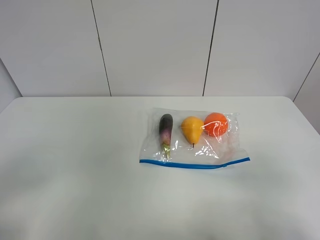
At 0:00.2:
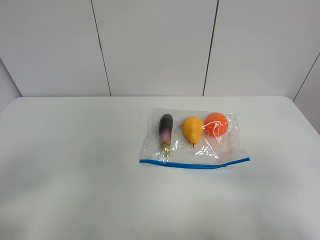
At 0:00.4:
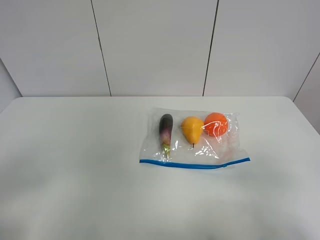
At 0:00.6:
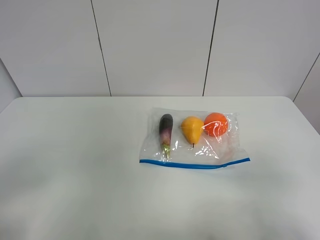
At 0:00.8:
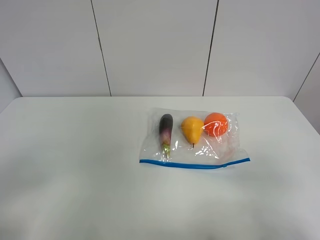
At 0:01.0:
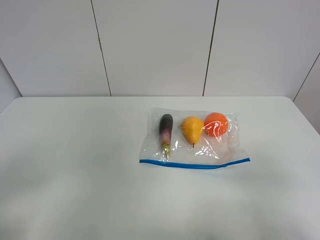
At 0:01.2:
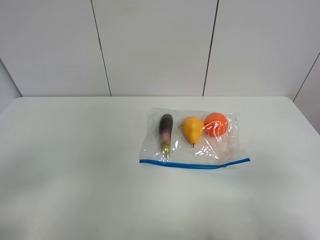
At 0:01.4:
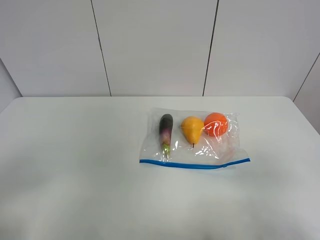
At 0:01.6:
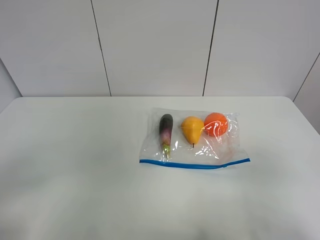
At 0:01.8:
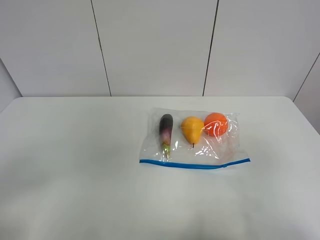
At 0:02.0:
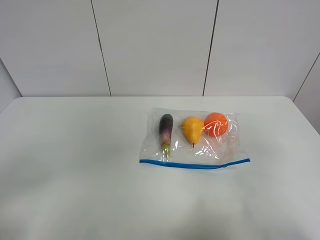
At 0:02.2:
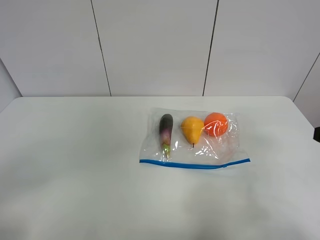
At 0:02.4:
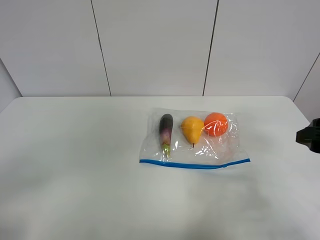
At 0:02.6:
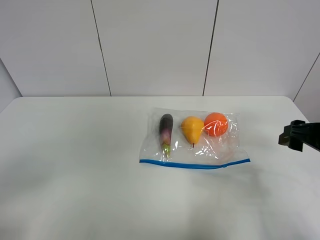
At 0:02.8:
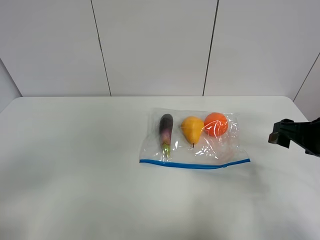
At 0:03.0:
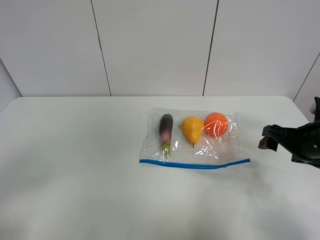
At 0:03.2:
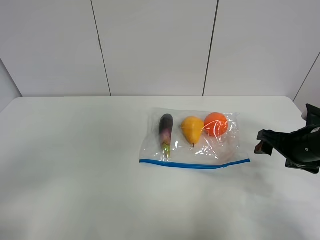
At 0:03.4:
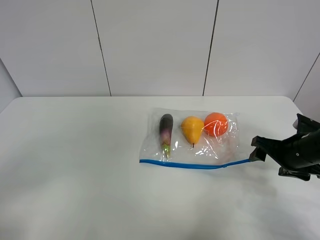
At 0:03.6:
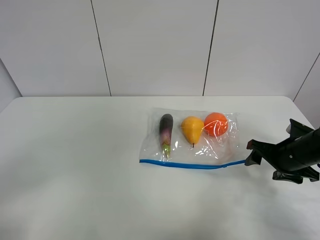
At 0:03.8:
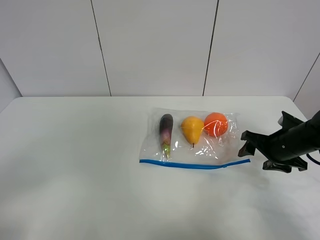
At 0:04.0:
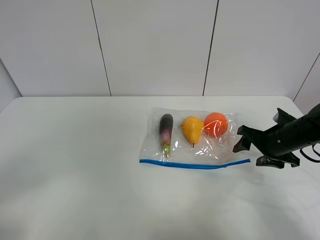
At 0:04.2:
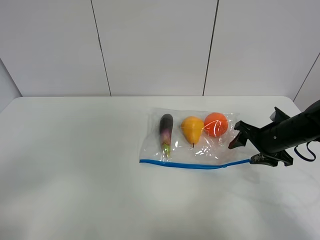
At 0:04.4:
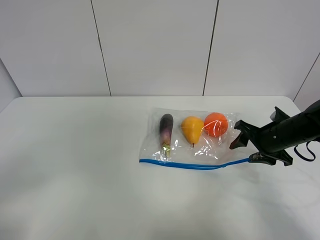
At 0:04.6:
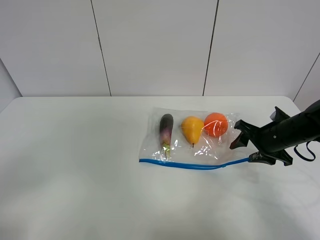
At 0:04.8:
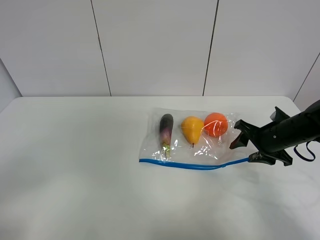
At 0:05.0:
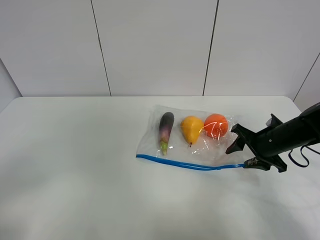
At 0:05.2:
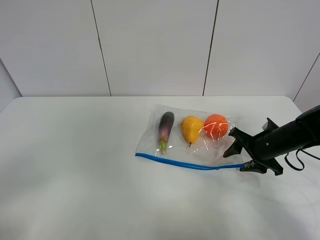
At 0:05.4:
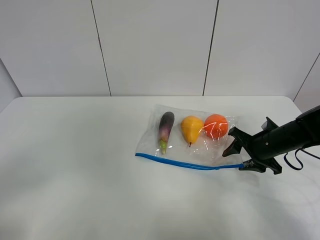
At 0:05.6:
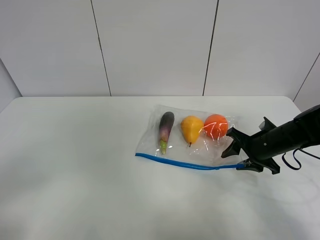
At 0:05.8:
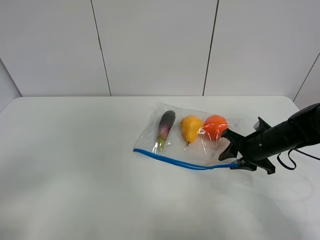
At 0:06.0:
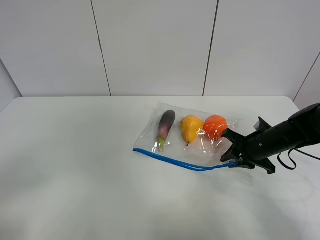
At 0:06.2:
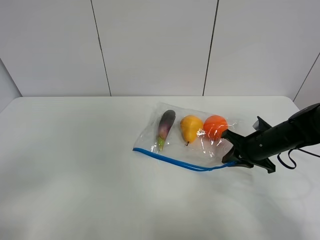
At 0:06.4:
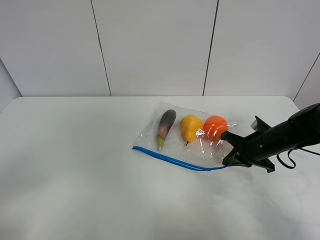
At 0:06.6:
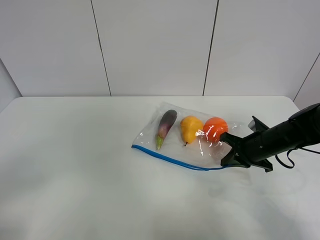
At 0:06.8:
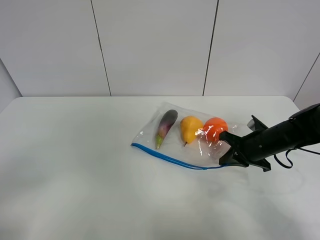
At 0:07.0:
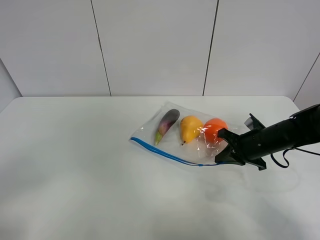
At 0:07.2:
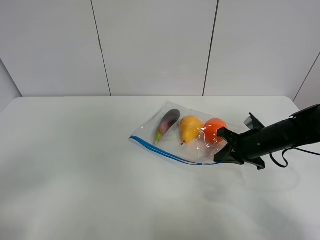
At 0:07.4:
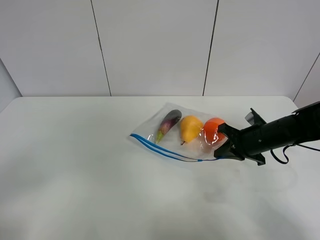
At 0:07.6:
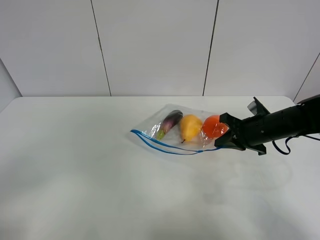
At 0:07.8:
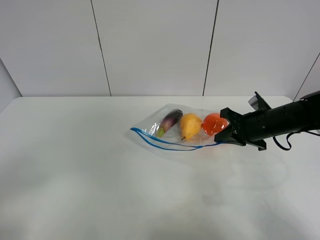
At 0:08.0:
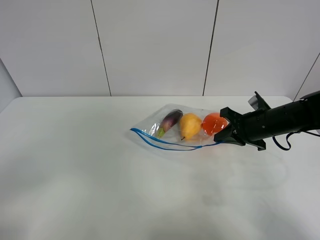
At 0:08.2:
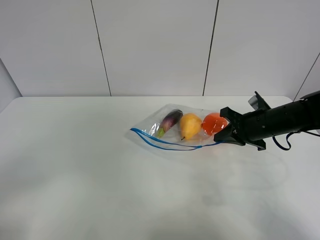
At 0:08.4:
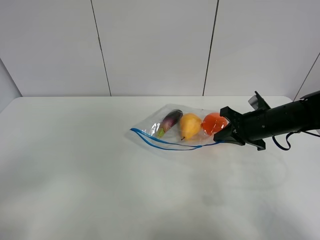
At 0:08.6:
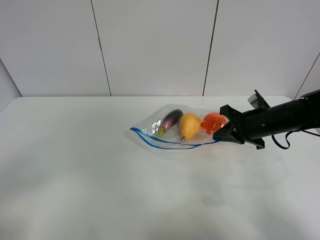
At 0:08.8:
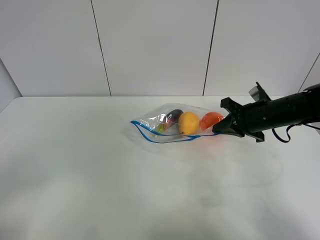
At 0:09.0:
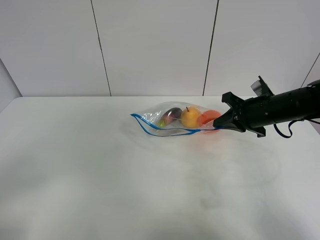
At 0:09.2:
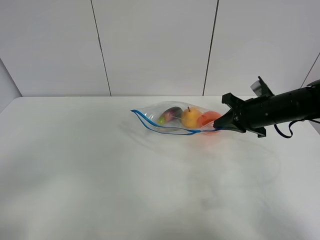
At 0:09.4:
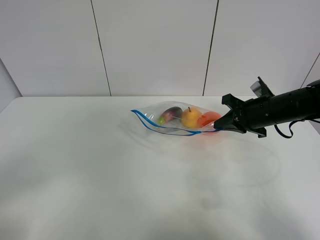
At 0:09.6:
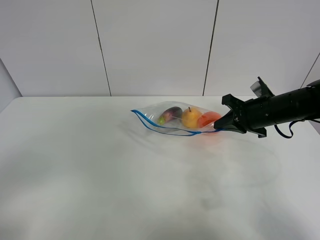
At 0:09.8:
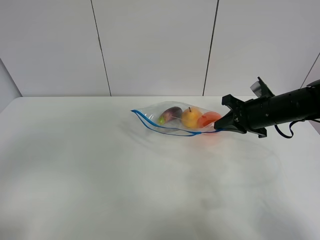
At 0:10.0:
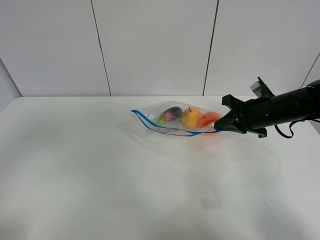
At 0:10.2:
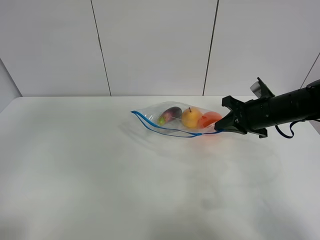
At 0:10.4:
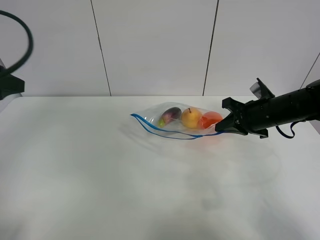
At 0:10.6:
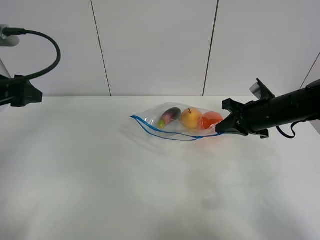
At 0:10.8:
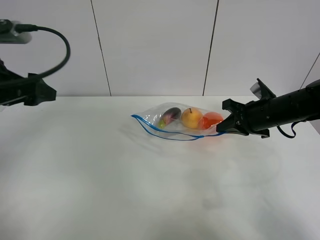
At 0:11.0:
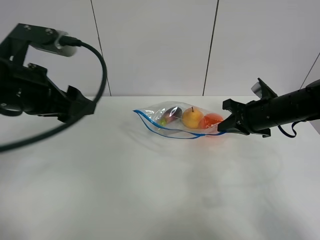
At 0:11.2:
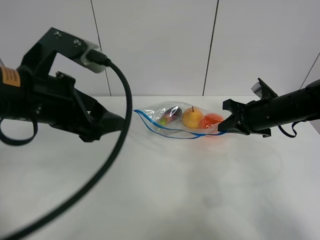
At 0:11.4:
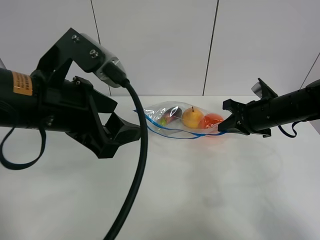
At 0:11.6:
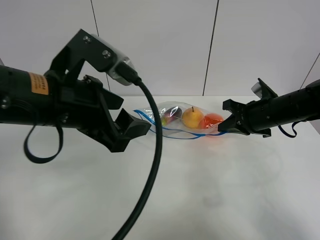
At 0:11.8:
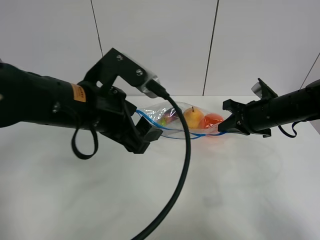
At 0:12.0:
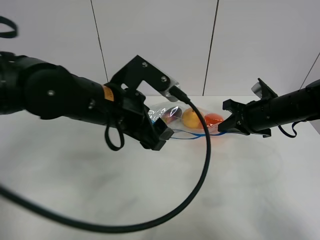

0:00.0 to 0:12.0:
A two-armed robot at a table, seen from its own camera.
Step, 0:00.0 to 0:06.4: Grasp the fruit bag with right gripper.
Step, 0:06.6 to 0:09.2: Lift the fruit bag with your right gripper.
0:01.6 to 0:03.0: The right gripper travels forward and downward by approximately 25 cm.
0:03.0 to 0:04.4: The right gripper is displaced forward and downward by some 10 cm.
0:04.4 to 0:06.0: The right gripper closes its fingers.
0:06.0 to 0:07.6: The grippers make only small movements.
0:07.6 to 0:09.0: The grippers stay close to where they were, moving slightly.
0:09.0 to 0:10.4: The left gripper travels forward by some 25 cm.
0:10.4 to 0:12.0: The left gripper travels to the right by approximately 25 cm.

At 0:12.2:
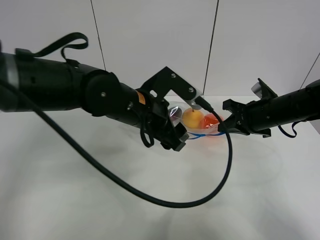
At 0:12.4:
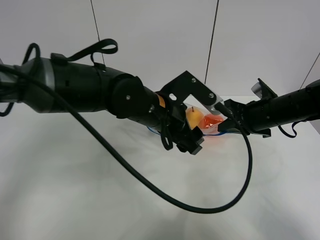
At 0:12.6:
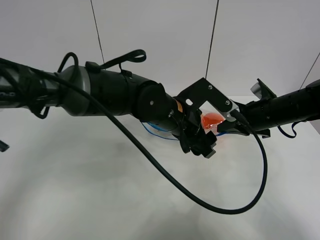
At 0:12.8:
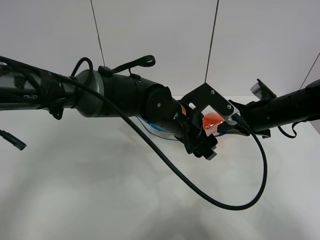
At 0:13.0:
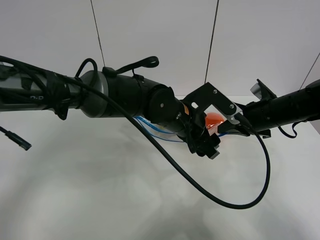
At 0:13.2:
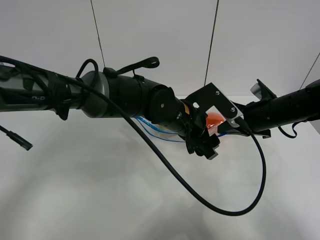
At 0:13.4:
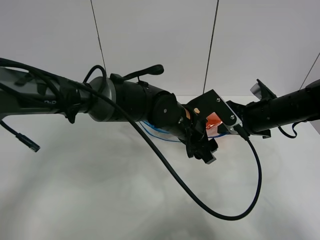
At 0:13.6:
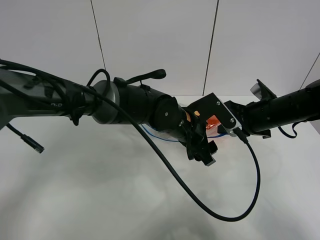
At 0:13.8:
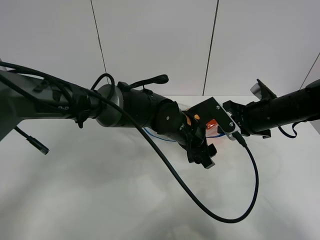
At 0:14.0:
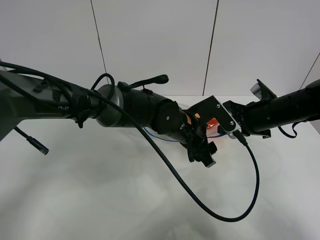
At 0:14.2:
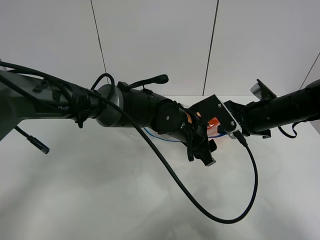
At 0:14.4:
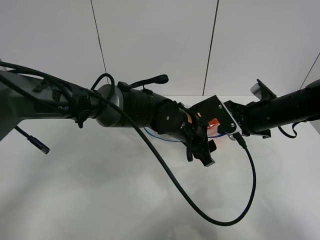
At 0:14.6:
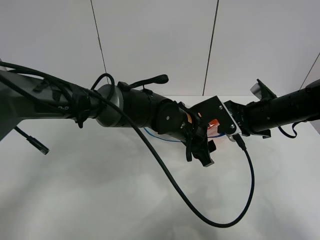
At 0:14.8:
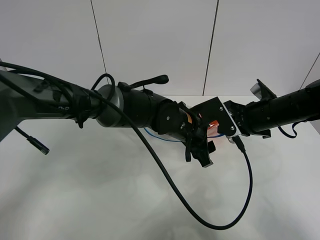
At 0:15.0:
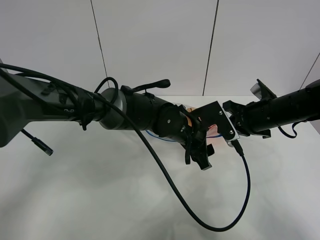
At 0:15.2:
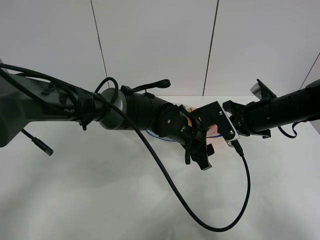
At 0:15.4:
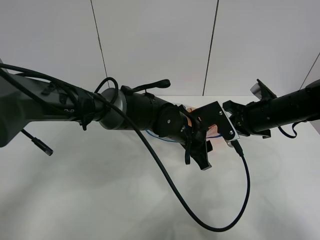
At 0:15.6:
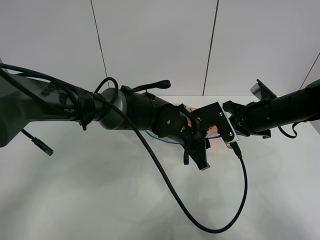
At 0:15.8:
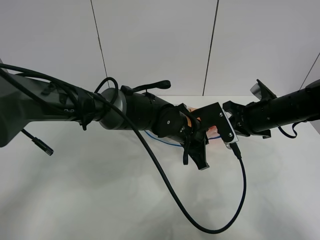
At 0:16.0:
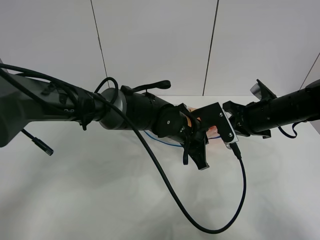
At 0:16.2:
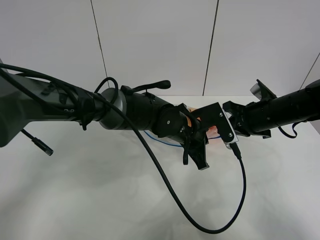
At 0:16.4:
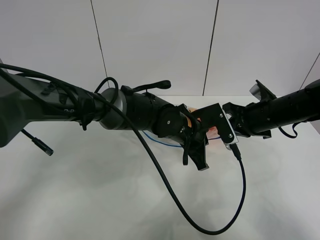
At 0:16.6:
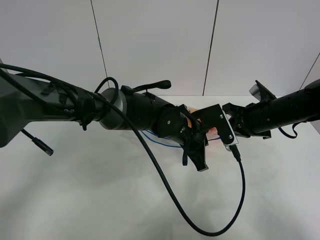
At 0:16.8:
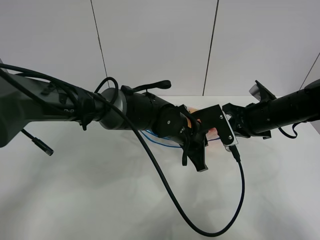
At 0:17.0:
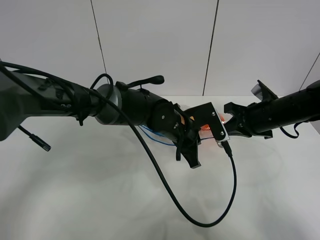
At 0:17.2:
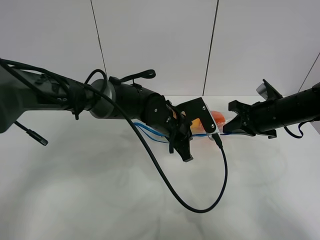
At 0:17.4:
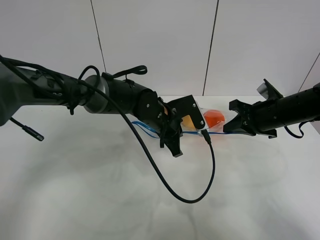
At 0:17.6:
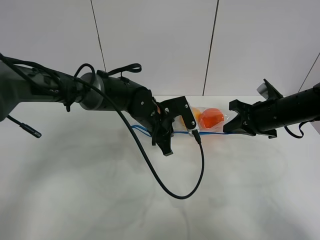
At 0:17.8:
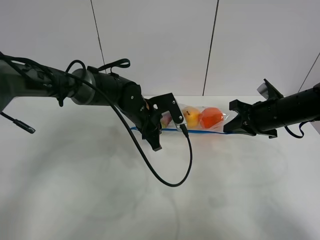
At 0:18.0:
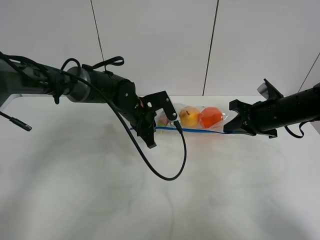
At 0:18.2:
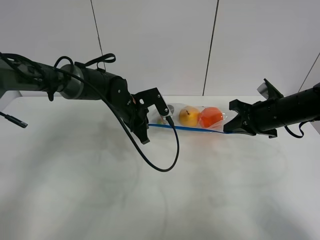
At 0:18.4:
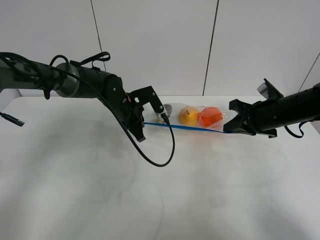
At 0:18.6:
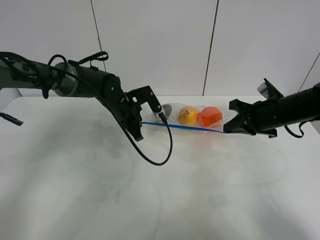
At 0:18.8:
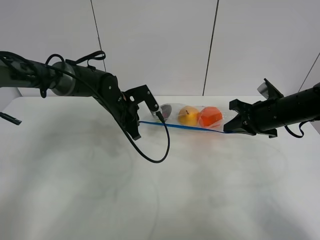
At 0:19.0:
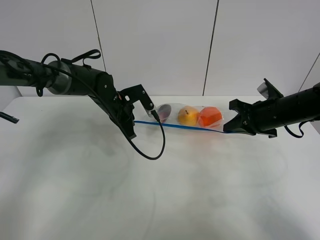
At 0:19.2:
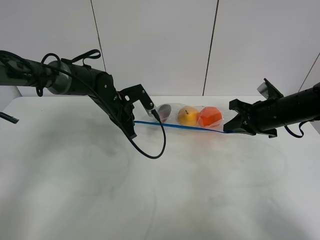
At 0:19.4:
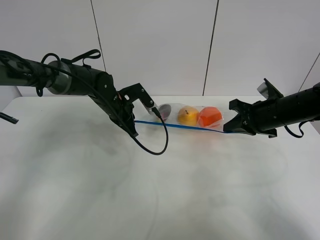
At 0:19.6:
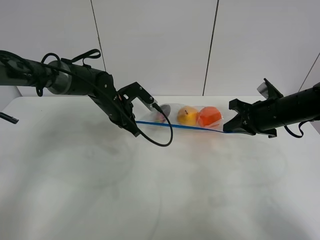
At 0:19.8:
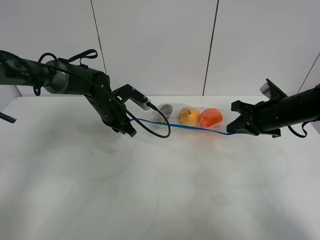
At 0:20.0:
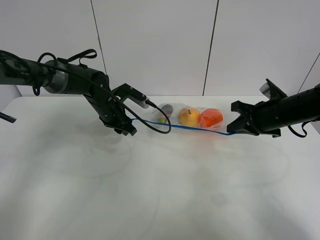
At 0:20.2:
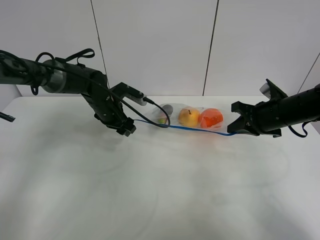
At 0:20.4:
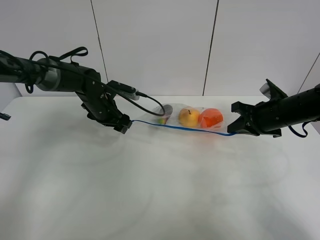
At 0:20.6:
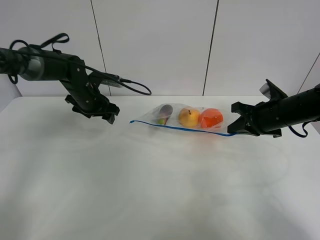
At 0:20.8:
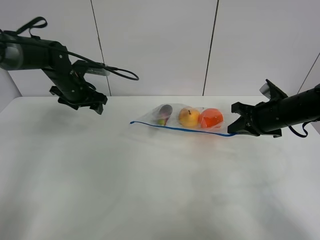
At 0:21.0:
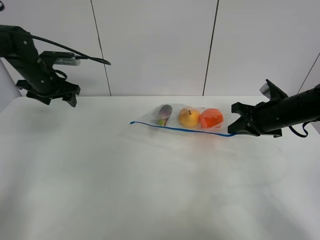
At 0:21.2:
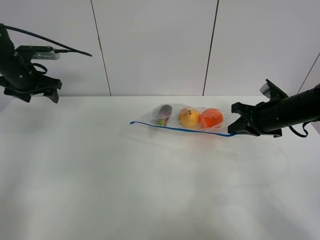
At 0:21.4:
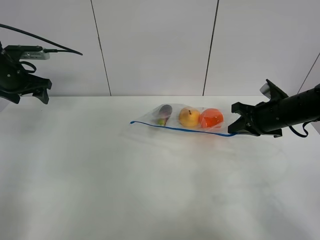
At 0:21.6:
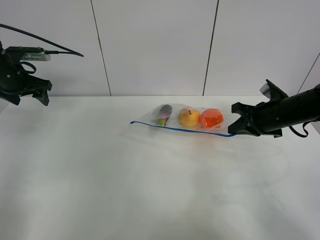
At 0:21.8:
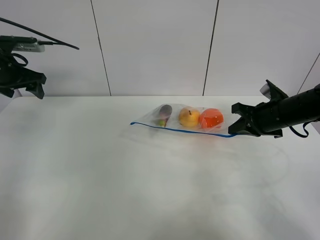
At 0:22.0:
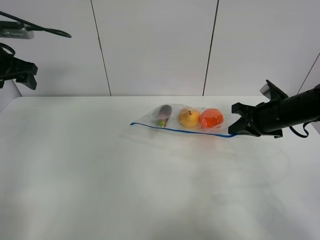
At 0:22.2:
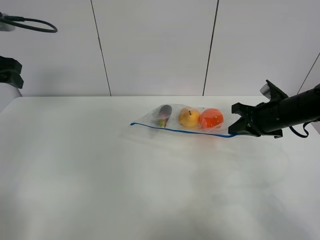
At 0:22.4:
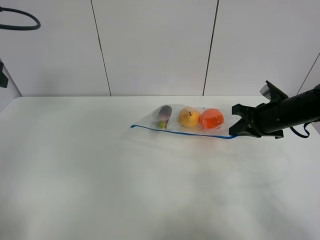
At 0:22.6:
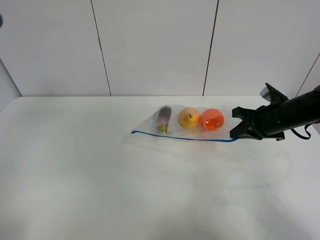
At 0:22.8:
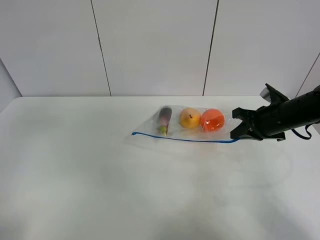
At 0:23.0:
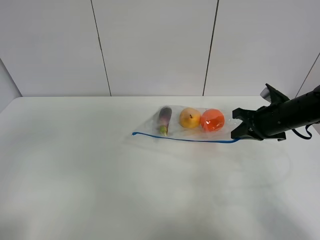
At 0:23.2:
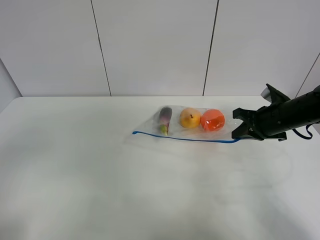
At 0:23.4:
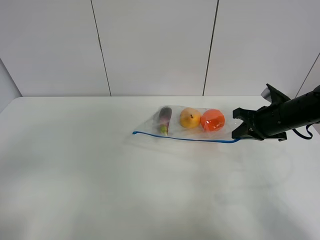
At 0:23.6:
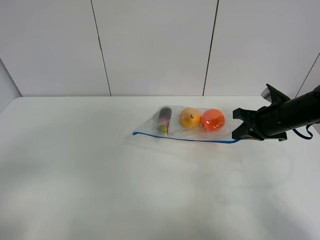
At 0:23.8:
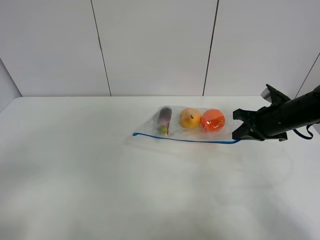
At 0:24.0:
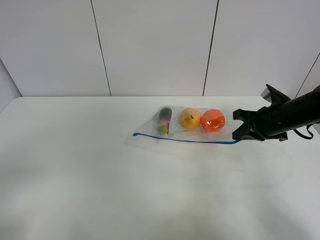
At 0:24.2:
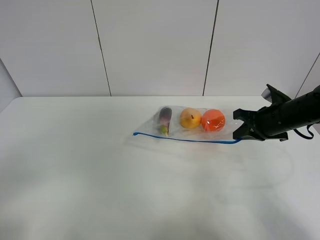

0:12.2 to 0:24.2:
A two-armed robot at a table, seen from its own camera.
Step, 0:12.2 to 0:20.0: Pull the fruit bag with left gripper.
0:12.2 to 0:13.8: The left gripper heads to the right and downward, covering about 10 cm.
0:13.8 to 0:15.2: The grippers stay close to where they were, moving slightly.
0:15.2 to 0:16.6: The left gripper closes.
0:16.6 to 0:18.2: The left gripper moves to the left and forward, approximately 15 cm.
0:18.2 to 0:19.8: The left gripper opens its fingers.
0:19.8 to 0:21.2: The left gripper is displaced to the left and upward by approximately 25 cm, and opens its fingers.
0:21.2 to 0:22.6: The left gripper goes roughly 25 cm backward and upward.
